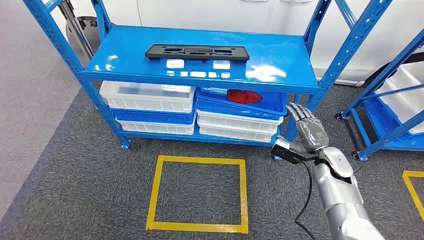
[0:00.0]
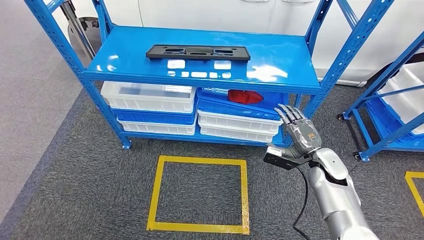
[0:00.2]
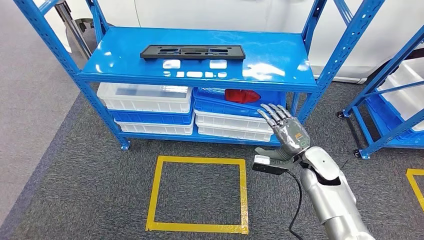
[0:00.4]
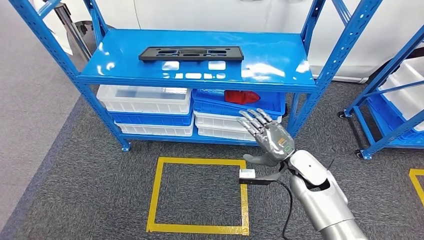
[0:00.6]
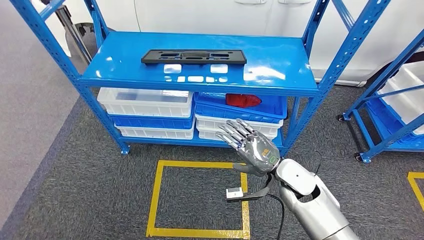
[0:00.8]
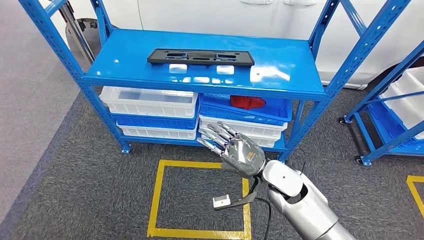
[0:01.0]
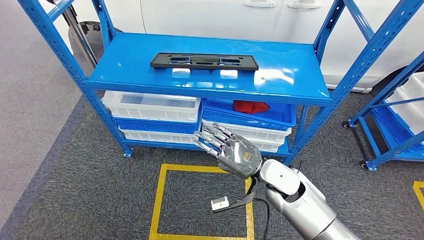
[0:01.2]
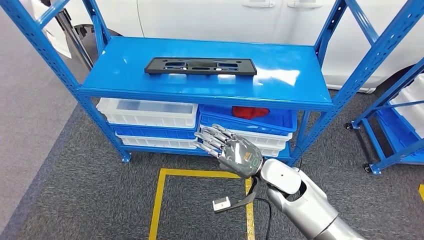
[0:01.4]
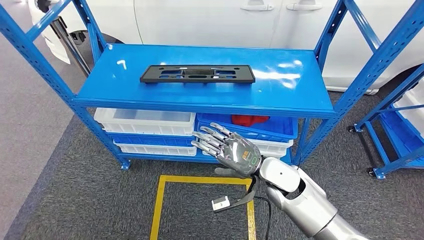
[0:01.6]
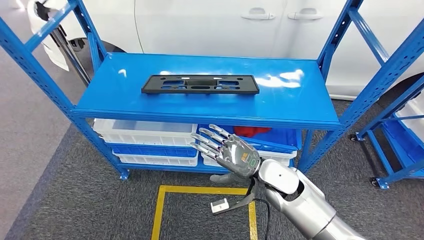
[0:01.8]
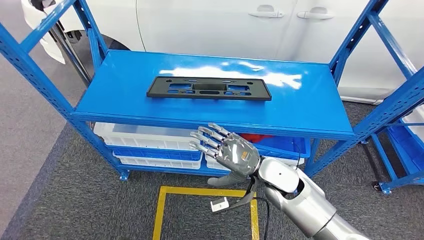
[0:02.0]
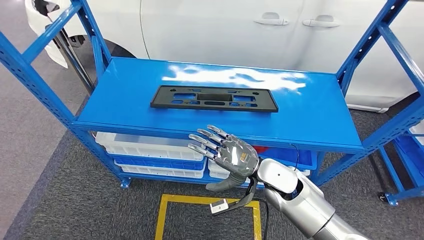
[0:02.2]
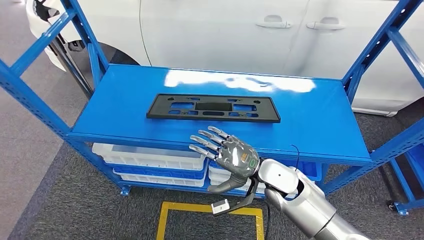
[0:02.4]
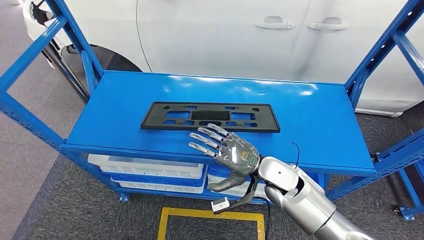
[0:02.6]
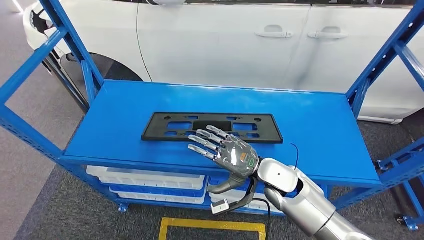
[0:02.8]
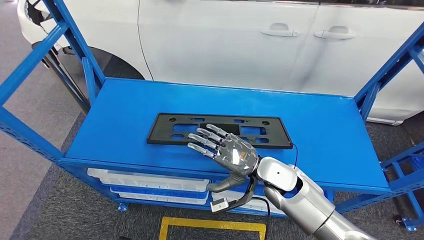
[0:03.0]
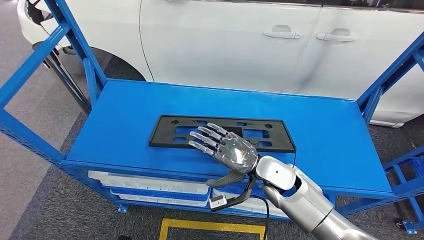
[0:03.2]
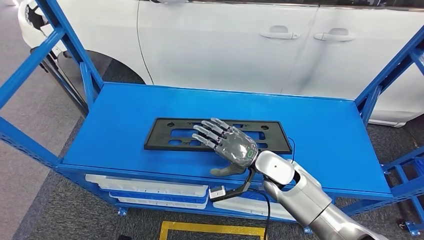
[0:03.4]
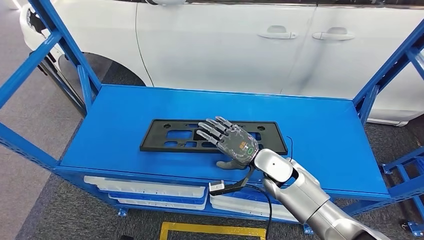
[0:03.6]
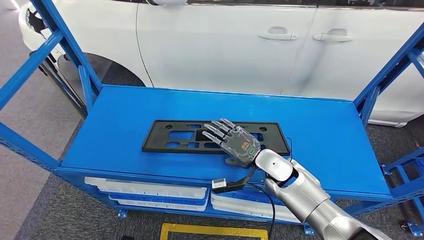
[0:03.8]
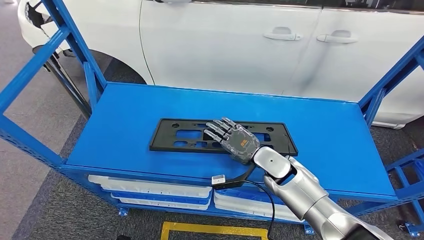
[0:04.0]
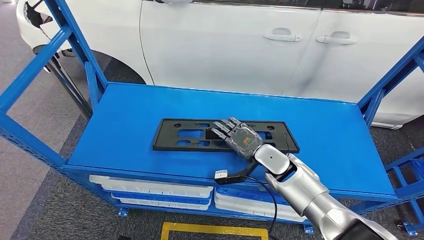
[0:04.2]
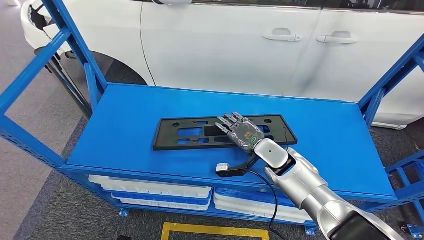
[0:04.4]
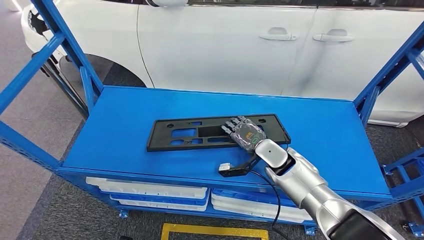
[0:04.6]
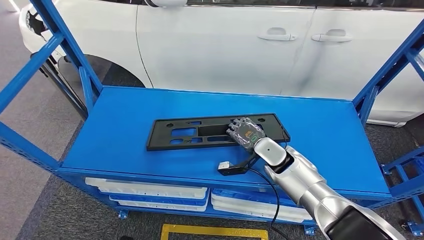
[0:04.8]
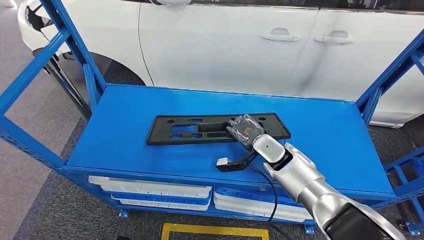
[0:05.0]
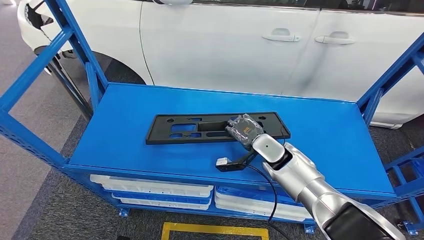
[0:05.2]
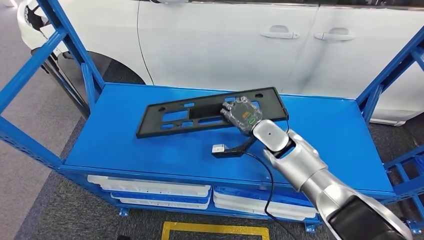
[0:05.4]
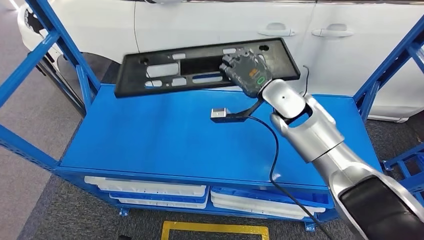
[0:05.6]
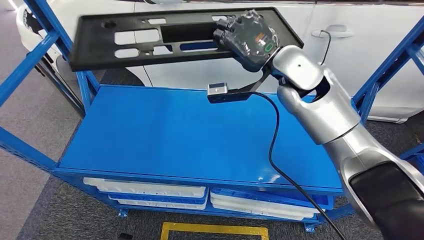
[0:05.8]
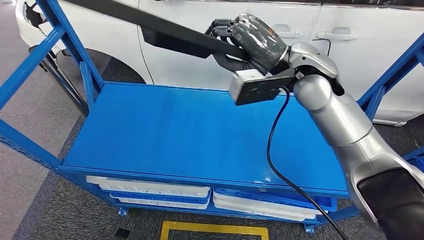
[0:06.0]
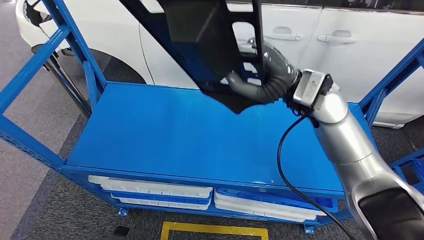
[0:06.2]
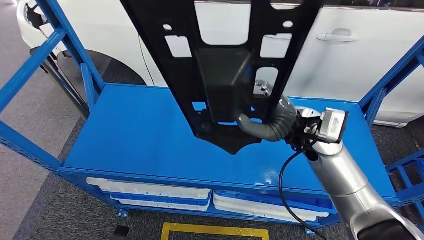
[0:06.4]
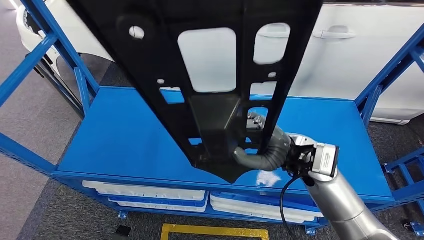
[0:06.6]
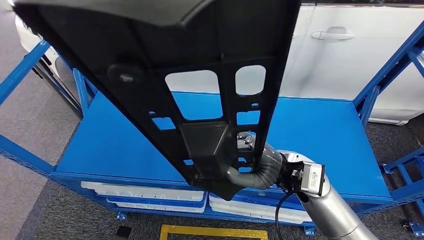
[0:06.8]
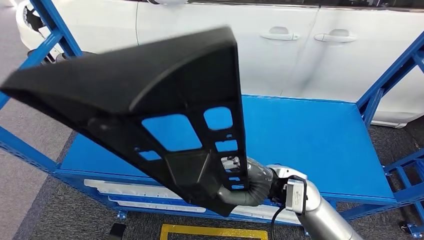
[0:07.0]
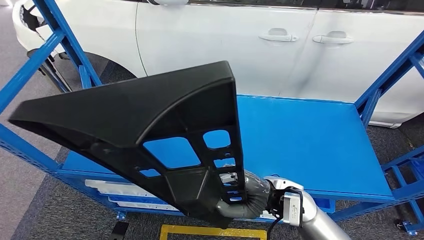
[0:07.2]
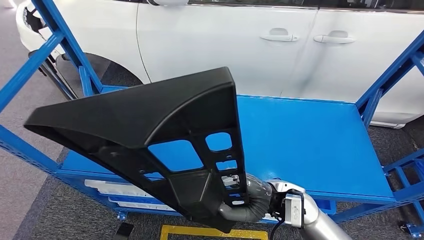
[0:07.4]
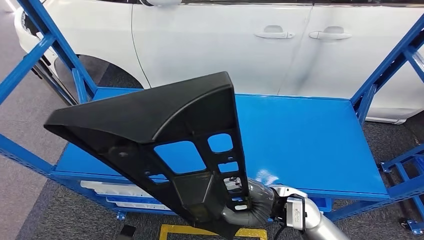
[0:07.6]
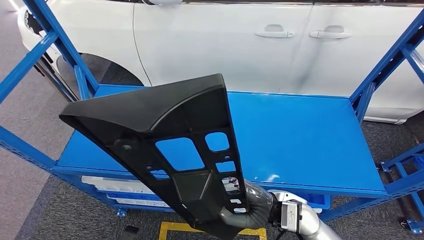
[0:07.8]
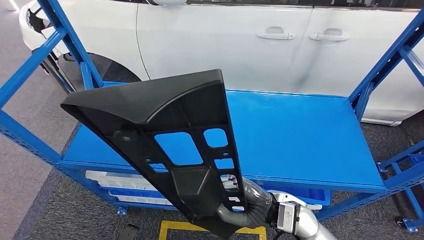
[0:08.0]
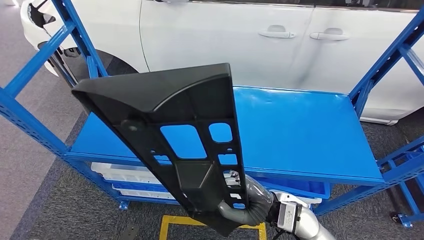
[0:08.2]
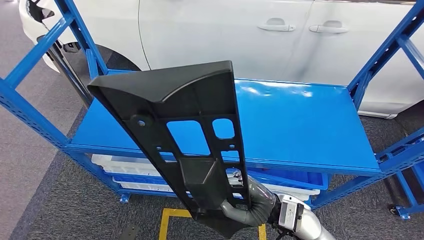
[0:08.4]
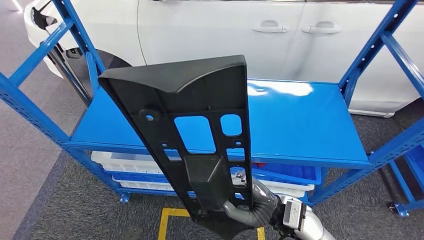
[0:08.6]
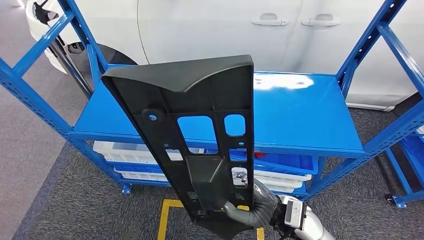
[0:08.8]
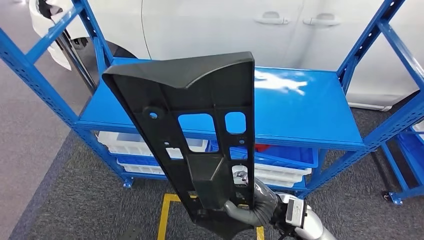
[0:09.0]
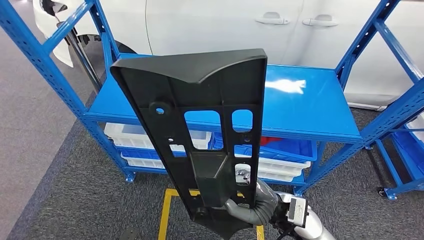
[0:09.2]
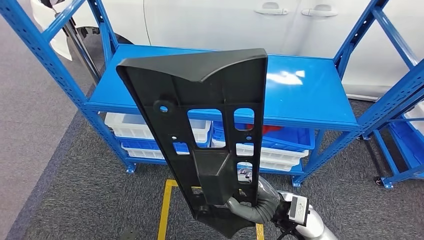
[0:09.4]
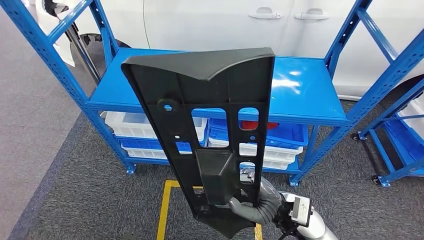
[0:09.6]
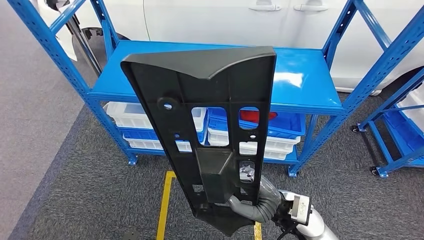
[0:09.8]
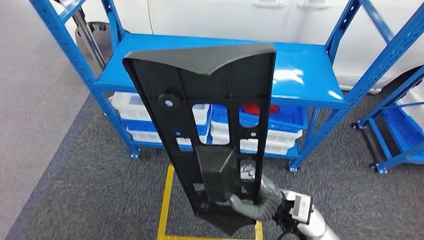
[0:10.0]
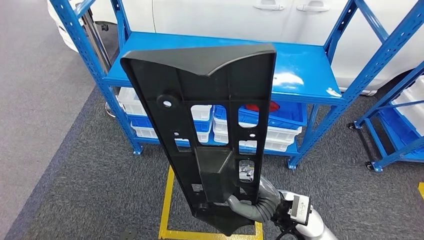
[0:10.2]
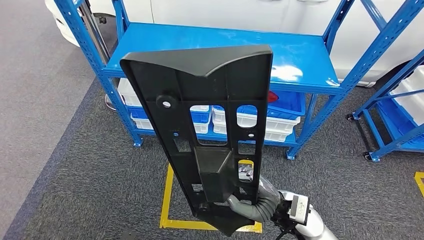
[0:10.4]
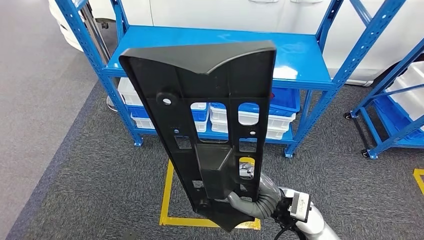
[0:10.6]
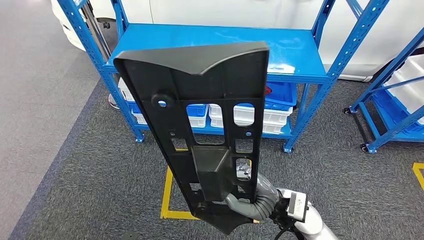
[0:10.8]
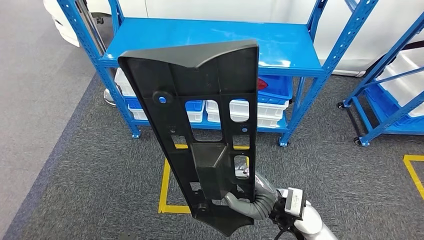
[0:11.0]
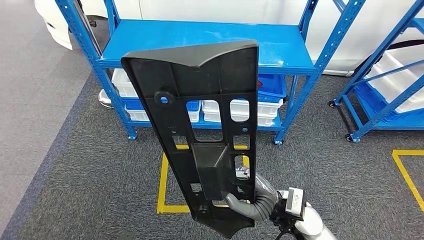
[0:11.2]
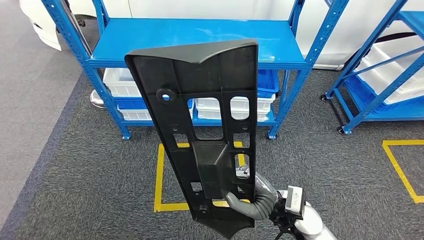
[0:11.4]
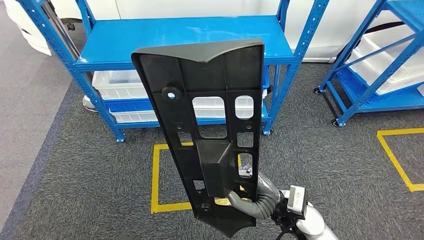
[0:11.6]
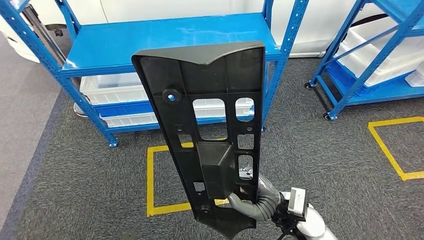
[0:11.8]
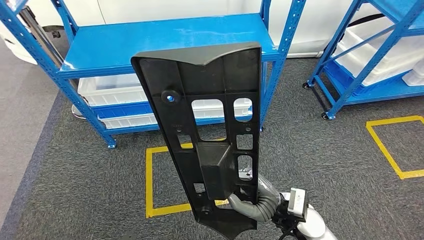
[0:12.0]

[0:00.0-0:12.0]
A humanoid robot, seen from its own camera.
Step, 0:00.0 to 0:06.2: Pick up the large material from the shelf.

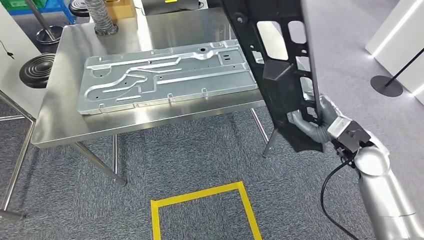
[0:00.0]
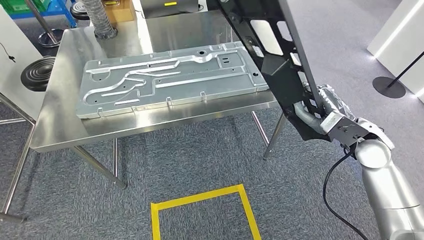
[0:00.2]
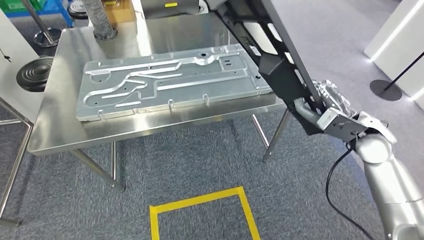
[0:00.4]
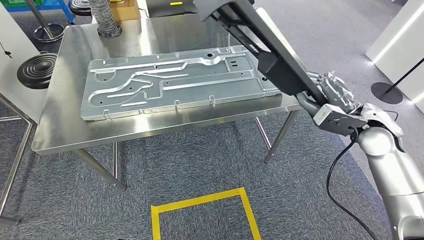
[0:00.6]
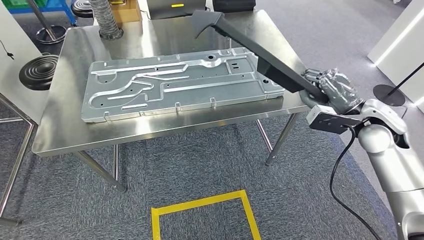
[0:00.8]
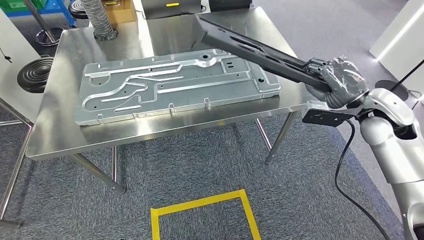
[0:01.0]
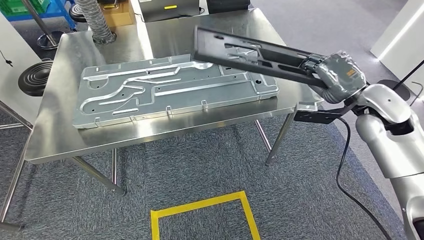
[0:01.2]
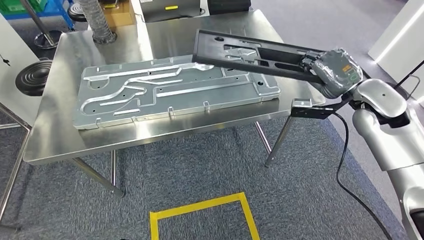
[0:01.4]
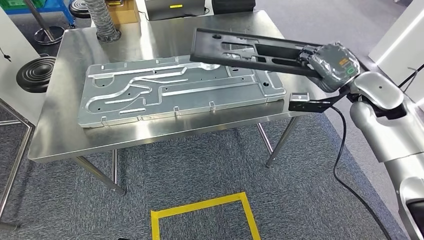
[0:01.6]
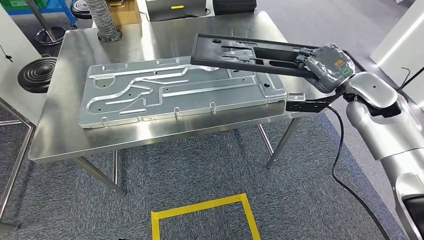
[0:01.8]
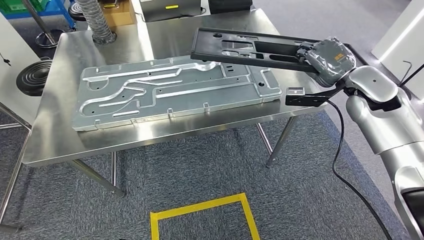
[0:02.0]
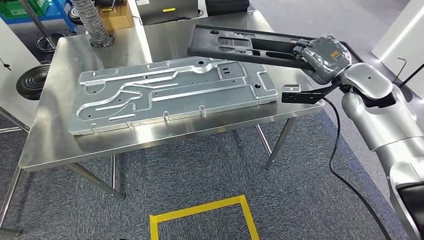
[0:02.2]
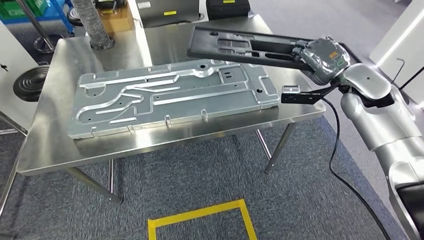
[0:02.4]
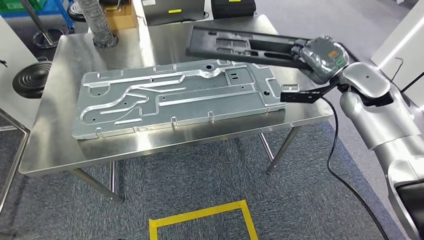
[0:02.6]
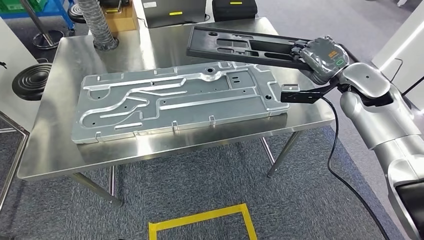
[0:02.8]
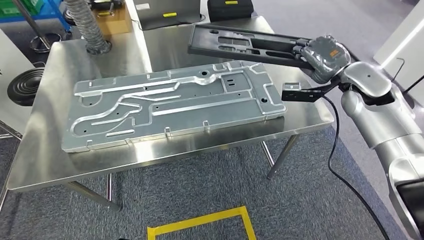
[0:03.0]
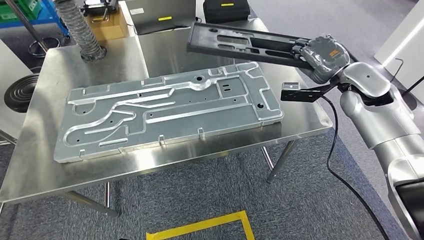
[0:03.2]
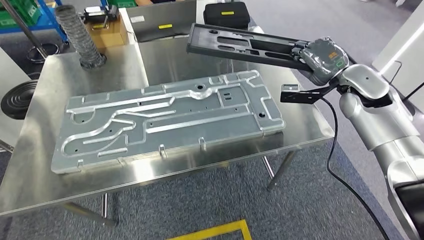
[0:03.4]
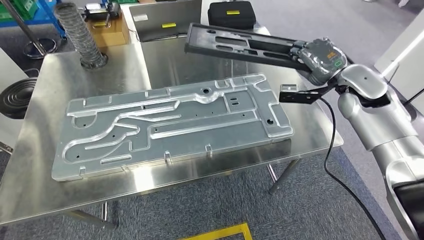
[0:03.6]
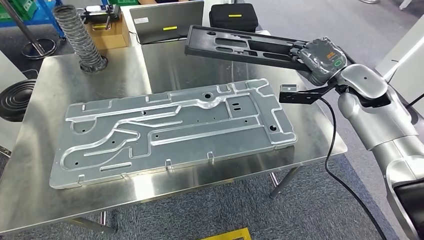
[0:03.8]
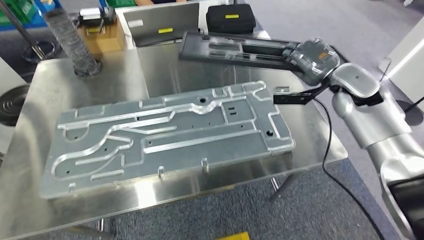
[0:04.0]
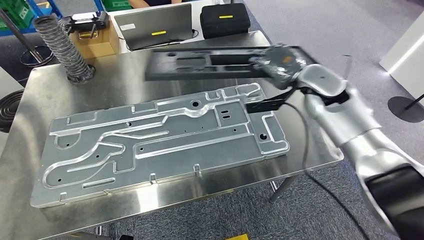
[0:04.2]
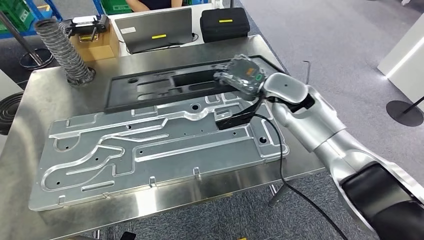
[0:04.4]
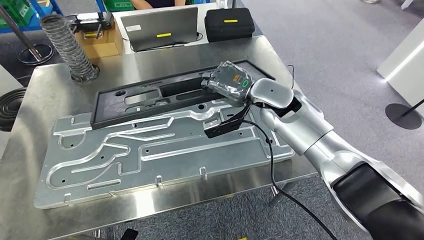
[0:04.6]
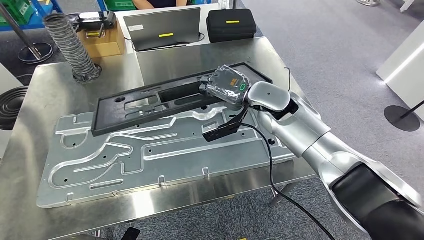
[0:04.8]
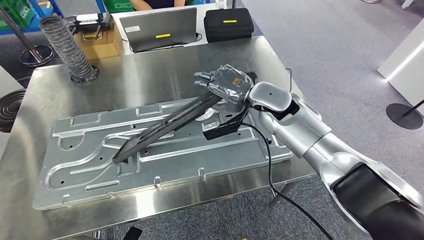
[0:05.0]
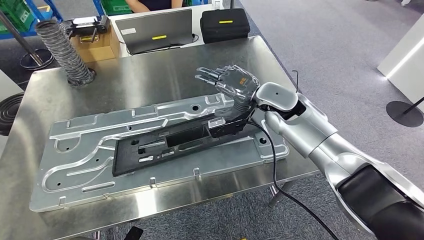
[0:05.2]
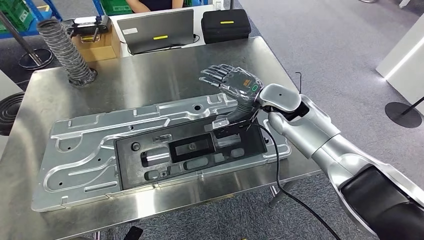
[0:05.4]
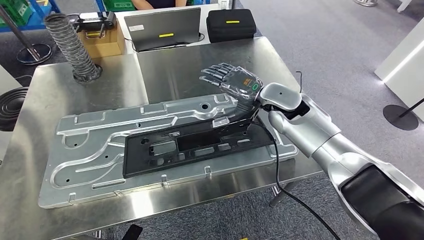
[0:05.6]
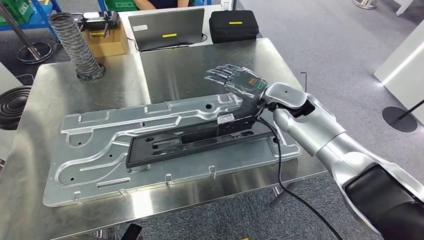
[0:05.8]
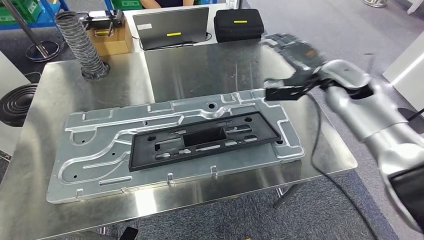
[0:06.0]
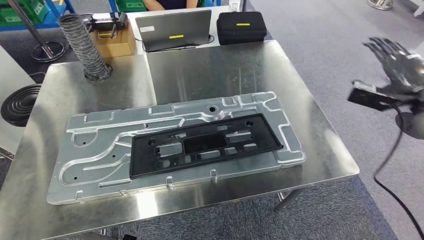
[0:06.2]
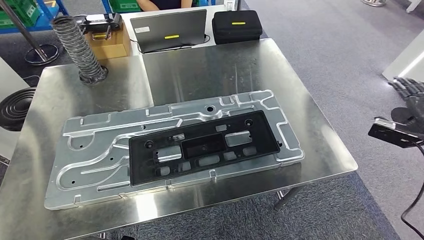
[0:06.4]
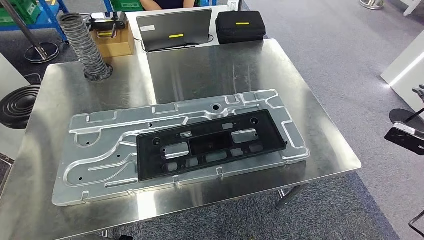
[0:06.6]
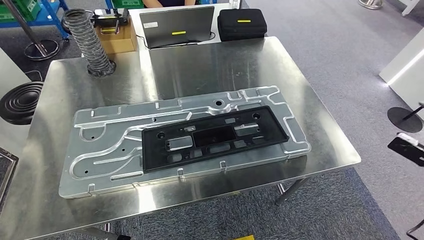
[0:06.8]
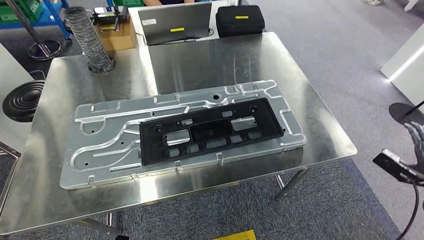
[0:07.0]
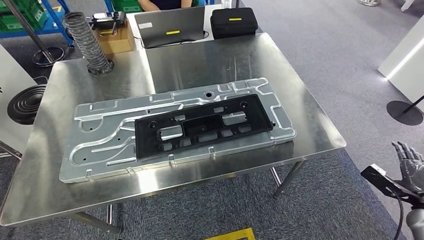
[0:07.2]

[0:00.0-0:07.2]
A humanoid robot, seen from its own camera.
Step, 0:01.2 to 0:06.8: Insert the large material into the corresponding slot on the workbench.
